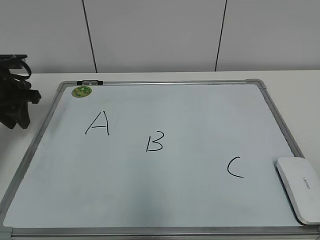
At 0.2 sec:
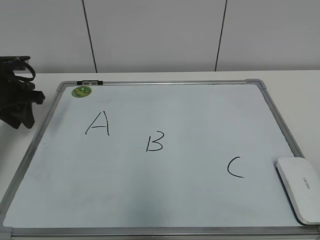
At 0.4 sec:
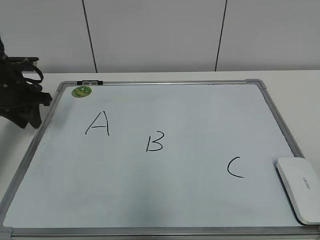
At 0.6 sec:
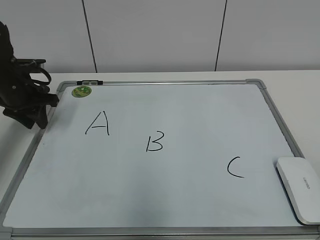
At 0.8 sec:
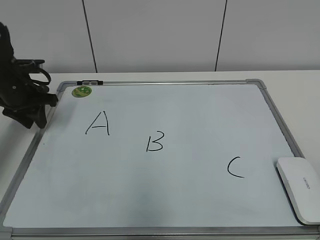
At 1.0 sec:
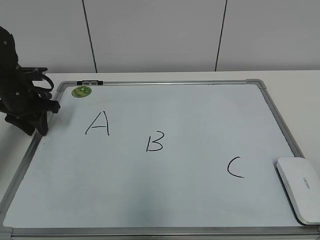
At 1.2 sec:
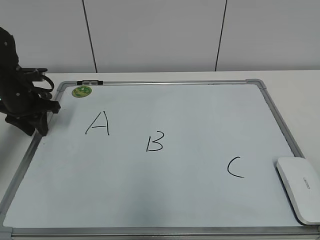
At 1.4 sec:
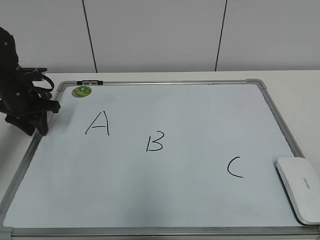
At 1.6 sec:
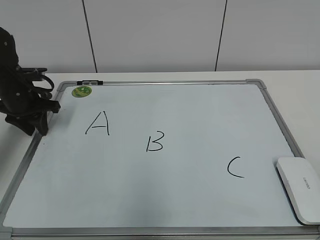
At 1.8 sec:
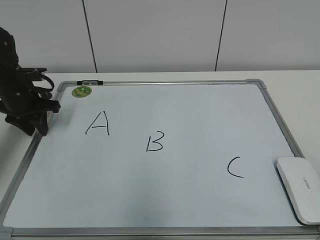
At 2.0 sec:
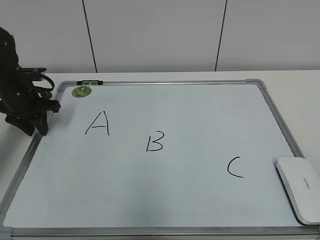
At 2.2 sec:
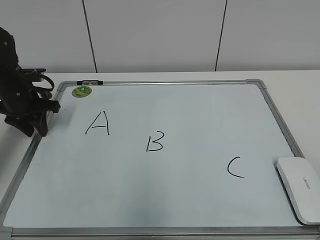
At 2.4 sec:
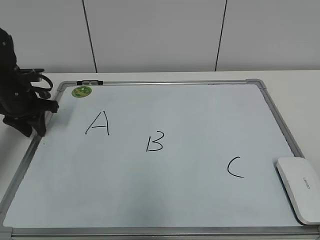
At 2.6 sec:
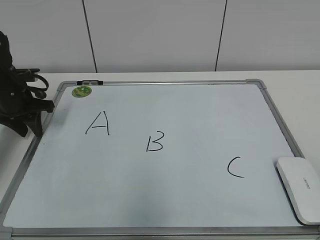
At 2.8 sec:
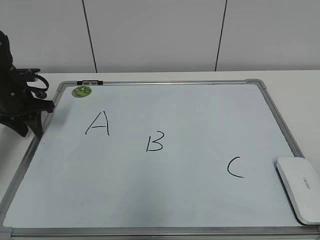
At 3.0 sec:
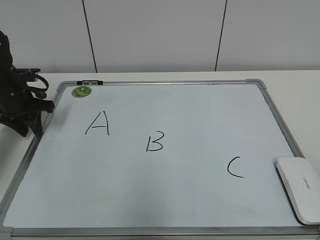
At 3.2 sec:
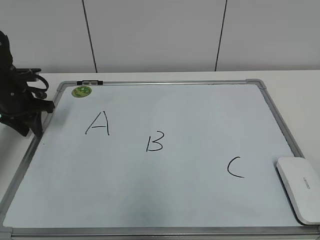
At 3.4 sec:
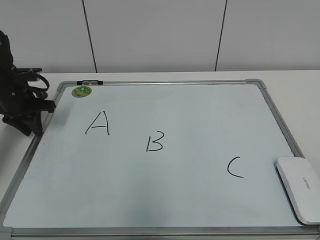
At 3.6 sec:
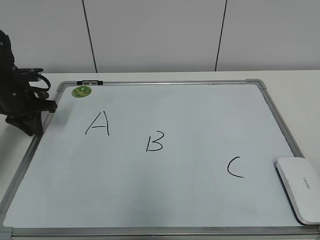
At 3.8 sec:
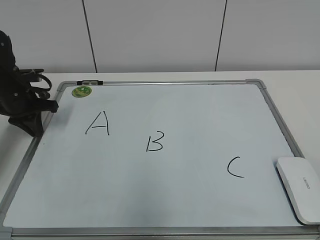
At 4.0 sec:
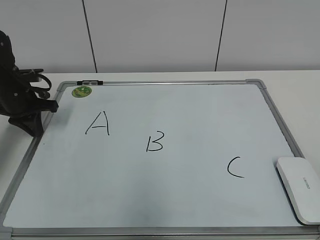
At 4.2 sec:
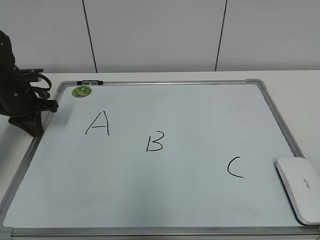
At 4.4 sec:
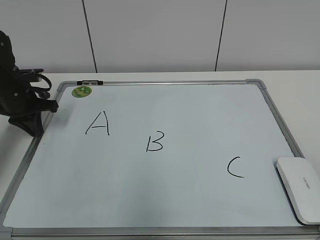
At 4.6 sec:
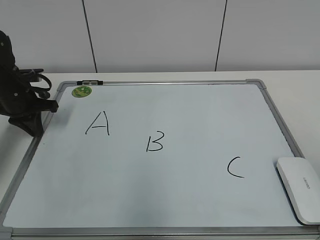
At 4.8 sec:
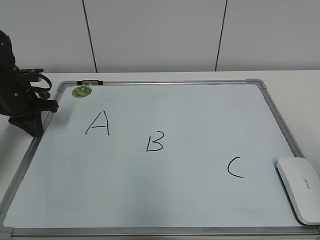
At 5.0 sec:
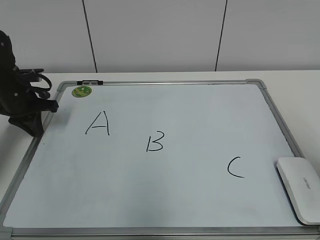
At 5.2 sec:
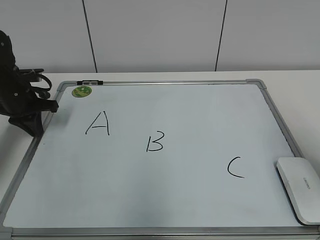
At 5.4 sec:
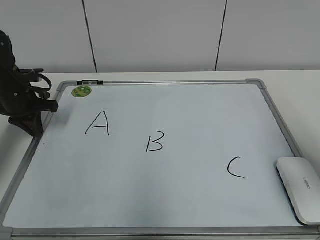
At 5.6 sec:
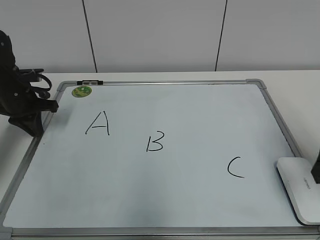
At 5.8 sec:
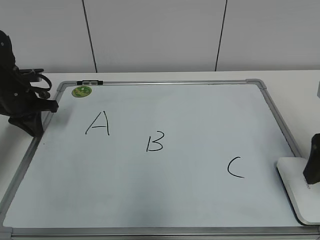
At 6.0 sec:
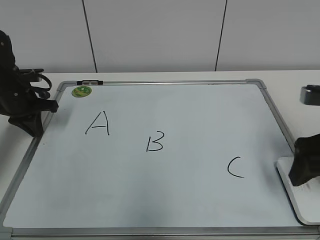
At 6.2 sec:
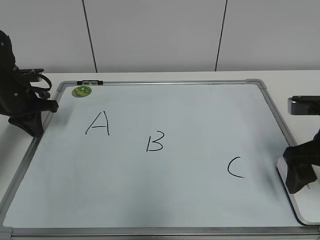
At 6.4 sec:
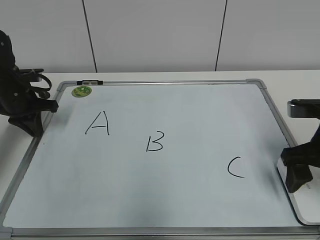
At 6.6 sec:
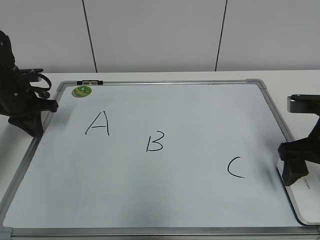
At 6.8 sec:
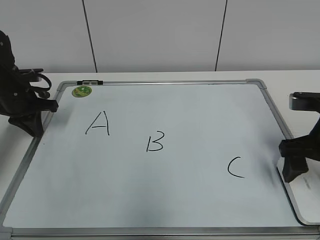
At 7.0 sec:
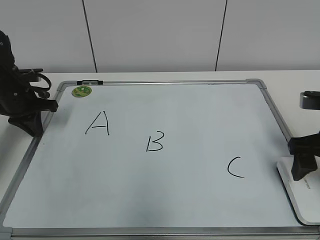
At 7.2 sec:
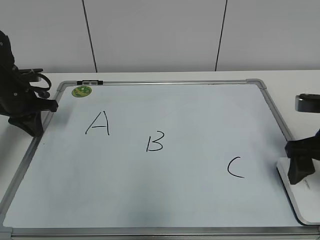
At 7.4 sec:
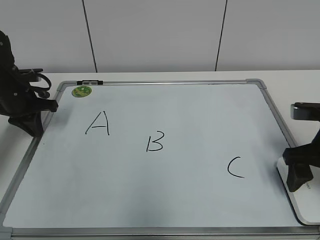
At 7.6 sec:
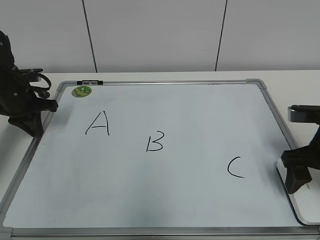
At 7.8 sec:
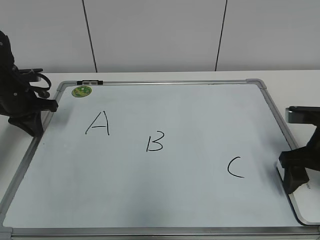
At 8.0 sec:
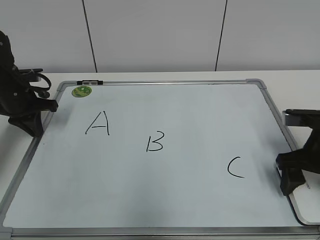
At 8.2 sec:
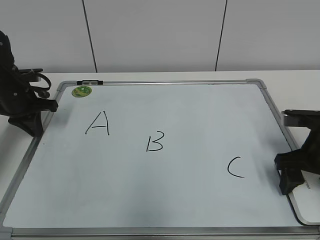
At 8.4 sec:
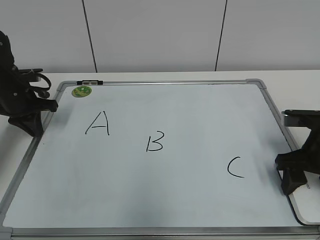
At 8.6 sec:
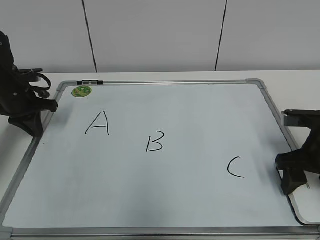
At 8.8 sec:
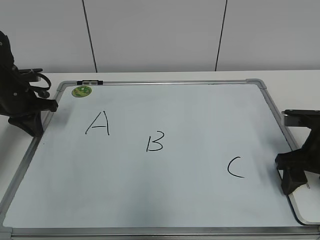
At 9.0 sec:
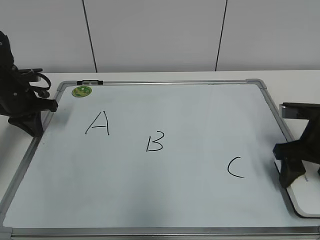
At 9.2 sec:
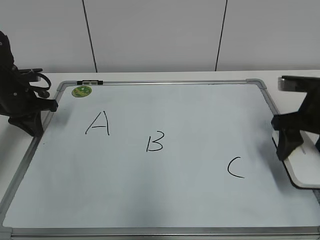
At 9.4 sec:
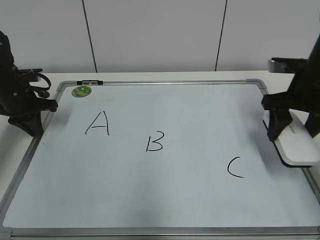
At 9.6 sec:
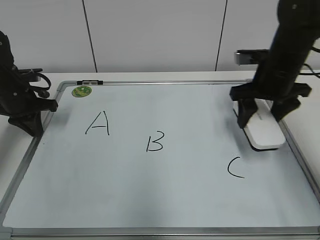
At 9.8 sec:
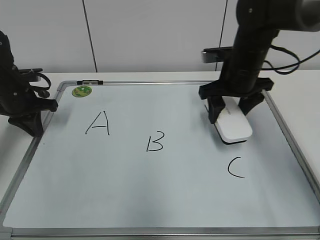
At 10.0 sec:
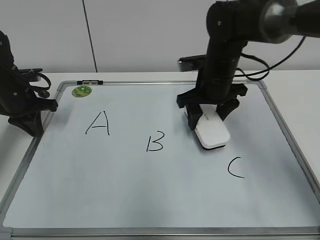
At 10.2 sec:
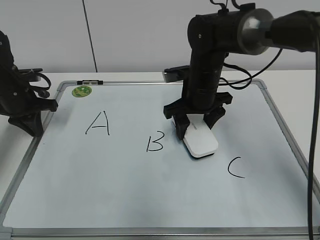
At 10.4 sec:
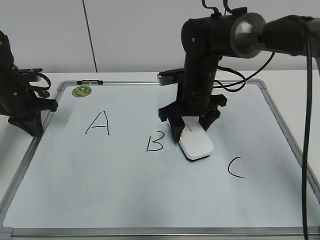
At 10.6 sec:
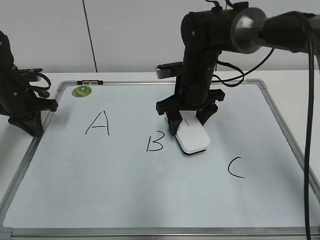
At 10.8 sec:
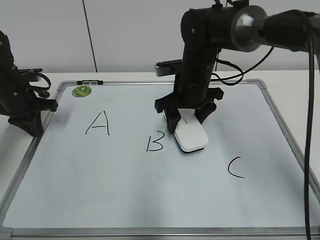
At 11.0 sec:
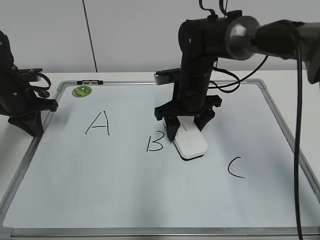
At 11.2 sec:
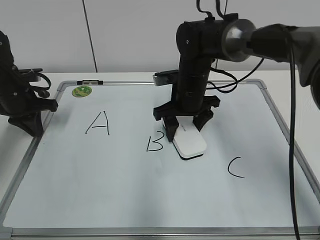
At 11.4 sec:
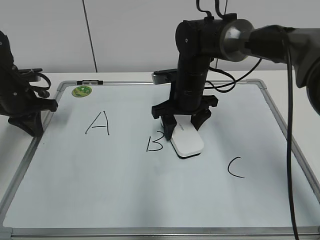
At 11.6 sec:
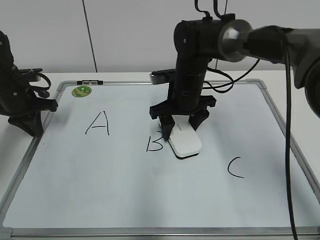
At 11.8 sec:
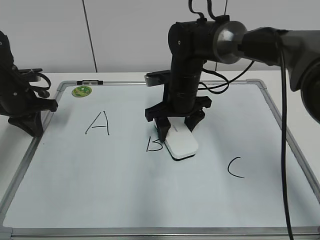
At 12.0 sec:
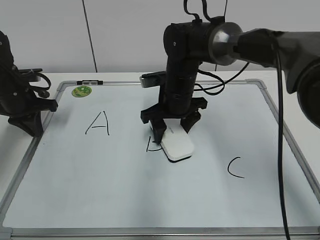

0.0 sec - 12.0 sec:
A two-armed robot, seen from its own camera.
Task of the whole recording: pick up the eraser on the blackboard and erase the letter "B".
Step, 0.0 sec - 4.2 sec: Hold the drawing board steady with your left hand.
Step, 4.4 sec - 8.4 sec: Grab the eraser with your right hand.
0.0 sec - 1.6 sec: The left gripper moves about 5 cm.
1.6 sec - 3.0 sec: The two grippers keep their place.
3.0 sec - 4.4 sec: The left gripper closes up.
4.4 sec - 6.0 sec: The right gripper is displaced forward by some 25 cm, and opens its fingers.
6.0 sec - 7.6 sec: The right gripper is displaced downward by some 5 cm.
7.6 sec - 9.0 sec: The right gripper closes.
9.0 sec - 10.4 sec: The right gripper is displaced to the left and forward by approximately 20 cm.
10.4 sec - 12.0 sec: The grippers move only a little.

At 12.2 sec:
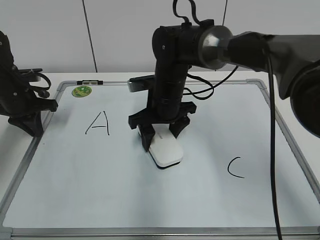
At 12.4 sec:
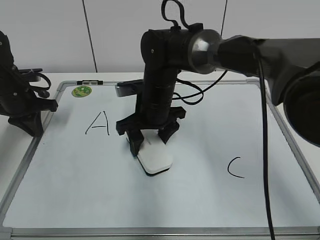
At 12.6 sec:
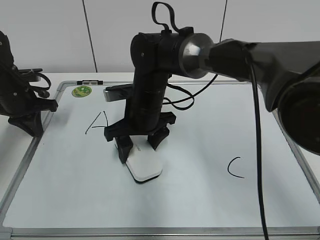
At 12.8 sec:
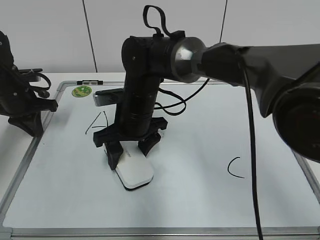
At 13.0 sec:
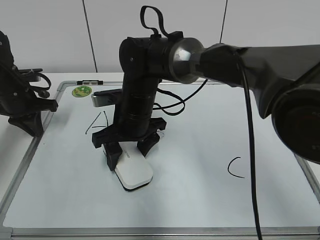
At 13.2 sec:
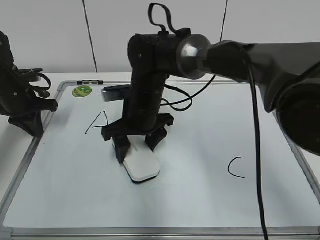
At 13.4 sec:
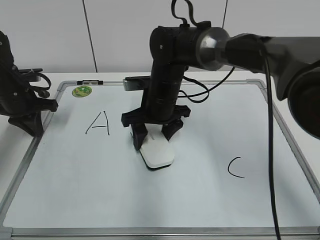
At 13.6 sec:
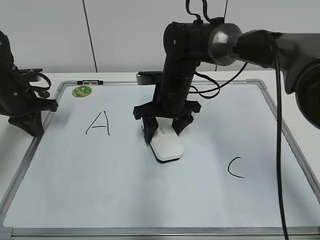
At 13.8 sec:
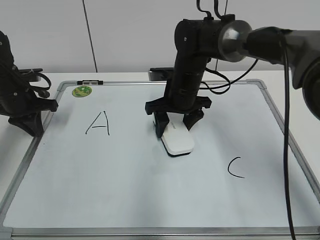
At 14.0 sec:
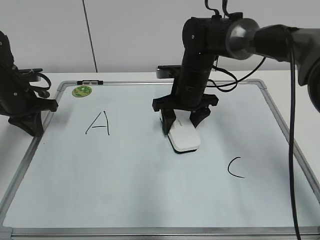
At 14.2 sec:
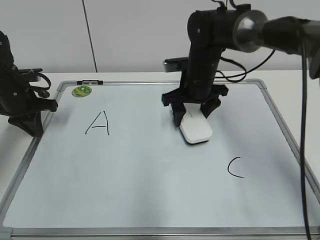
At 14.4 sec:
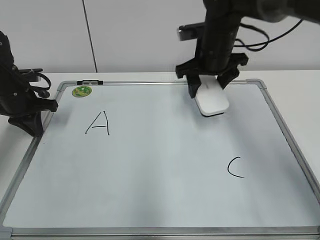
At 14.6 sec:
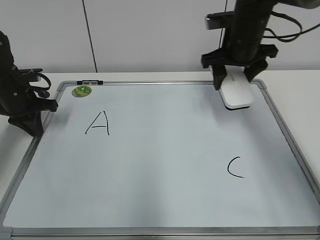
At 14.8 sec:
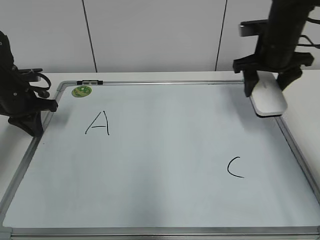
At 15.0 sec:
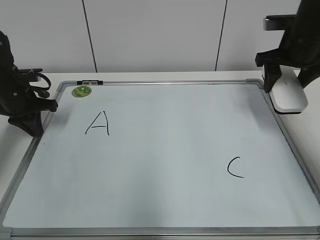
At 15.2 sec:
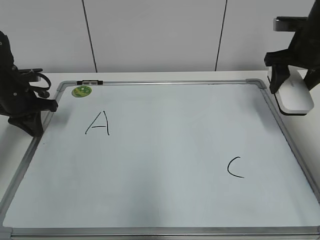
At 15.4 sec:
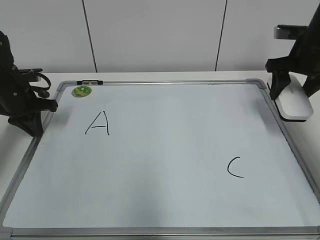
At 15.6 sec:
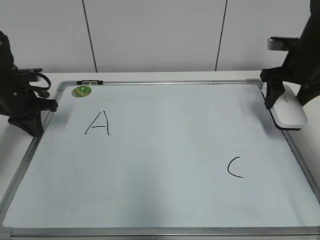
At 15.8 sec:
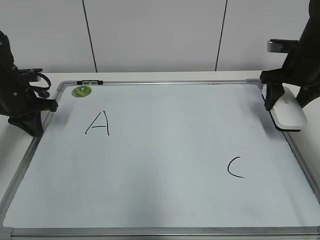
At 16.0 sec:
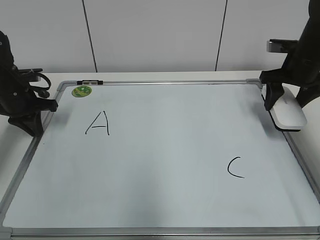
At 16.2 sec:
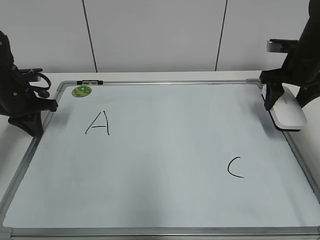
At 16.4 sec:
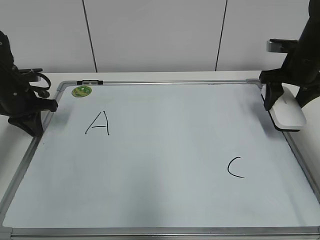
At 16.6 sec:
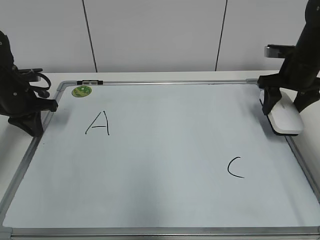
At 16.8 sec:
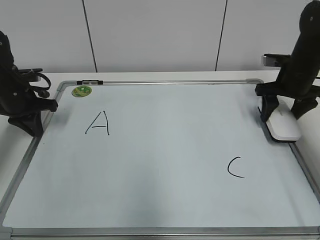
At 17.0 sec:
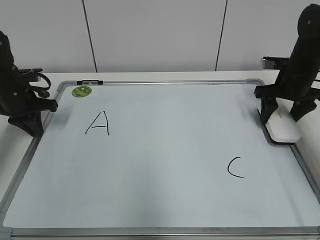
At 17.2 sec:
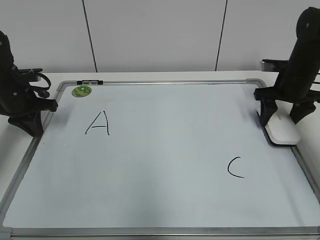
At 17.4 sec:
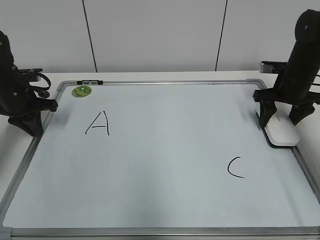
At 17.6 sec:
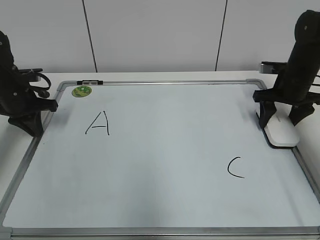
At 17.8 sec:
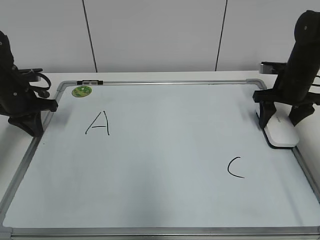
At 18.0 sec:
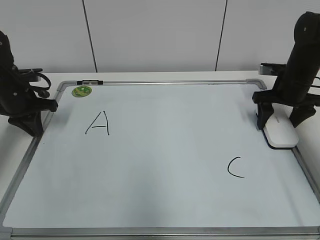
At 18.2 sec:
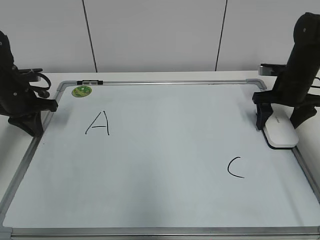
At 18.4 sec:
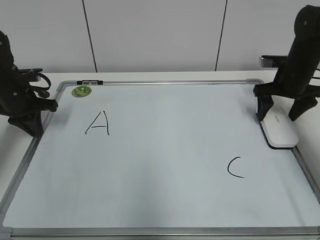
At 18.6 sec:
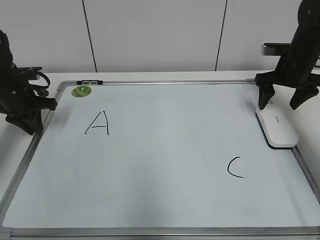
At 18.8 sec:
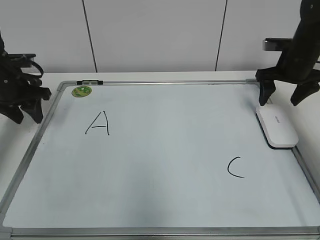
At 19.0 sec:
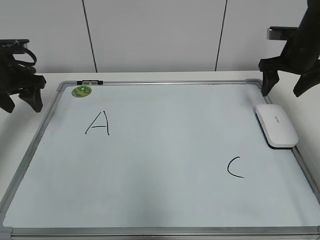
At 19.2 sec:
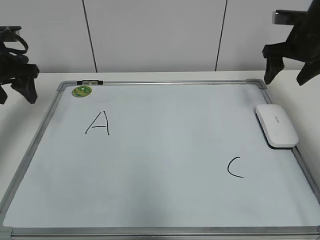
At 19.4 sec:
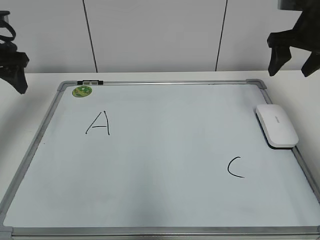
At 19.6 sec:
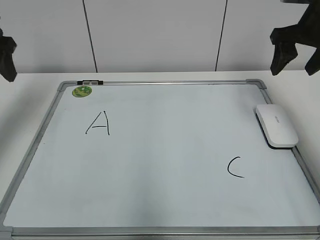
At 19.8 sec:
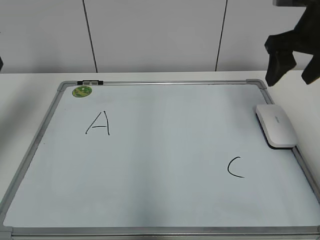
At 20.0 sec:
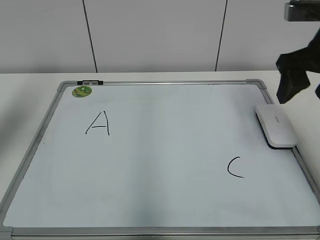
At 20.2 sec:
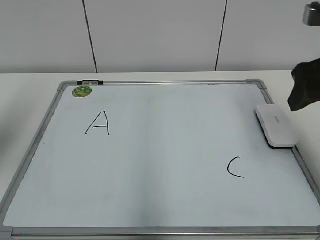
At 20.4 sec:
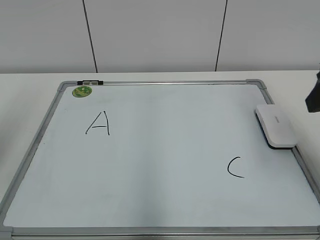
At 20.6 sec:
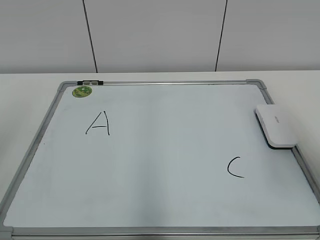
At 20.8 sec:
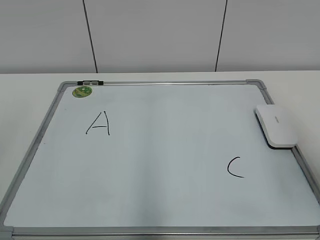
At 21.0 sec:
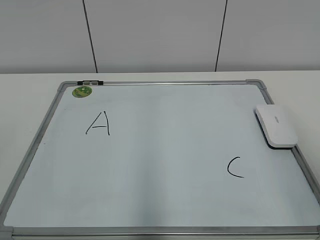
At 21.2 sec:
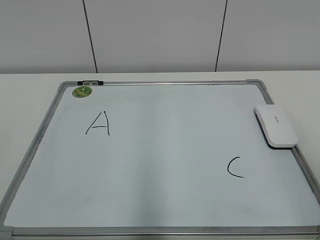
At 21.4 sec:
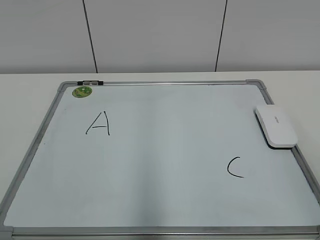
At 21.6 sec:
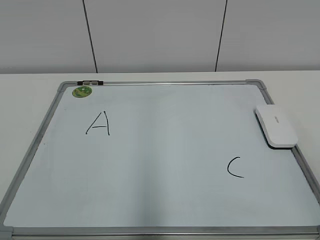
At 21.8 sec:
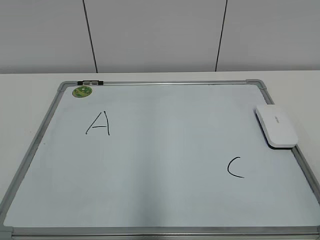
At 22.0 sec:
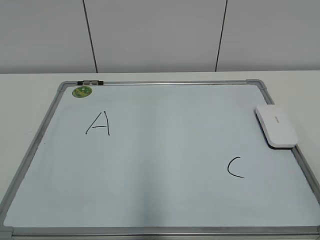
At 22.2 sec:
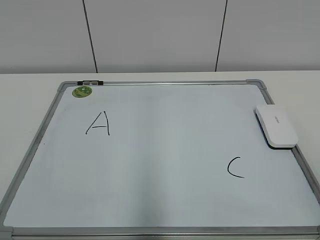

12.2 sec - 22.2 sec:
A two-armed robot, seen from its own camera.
Task of the whole recording: pick up the eraser on the blackboard and erase the letter "B".
Step, 14.0 sec - 18.0 sec: Put down the eraser with your right hand.
12.2 sec - 13.6 sec: The right gripper moves some 5 cm to the left and comes back.
13.6 sec - 15.0 sec: The right gripper goes about 25 cm to the right and upward.
15.0 sec - 16.4 sec: The right gripper changes place by about 5 cm.
16.4 sec - 18.0 sec: The right gripper is displaced downward by some 5 cm, and opens up.
18.0 sec - 19.4 sec: The two grippers go some 15 cm upward. The left gripper opens up.
19.4 sec - 20.8 sec: Both grippers move backward, some 30 cm.
